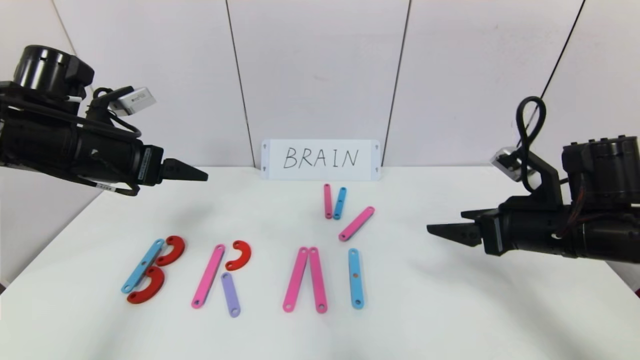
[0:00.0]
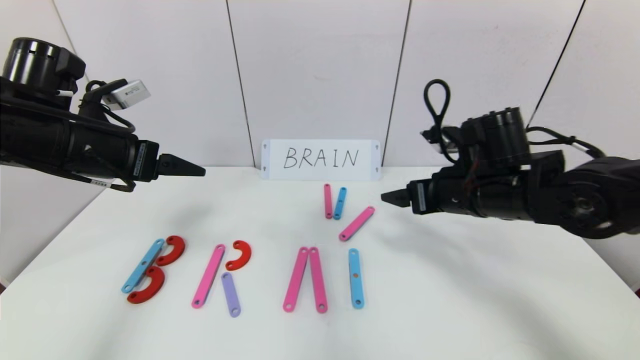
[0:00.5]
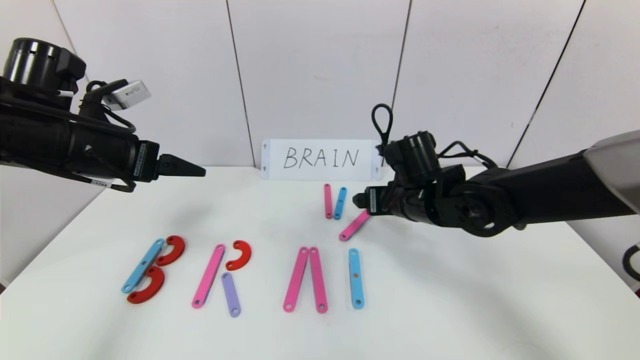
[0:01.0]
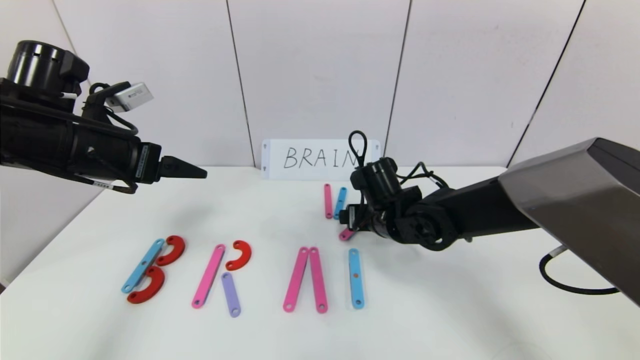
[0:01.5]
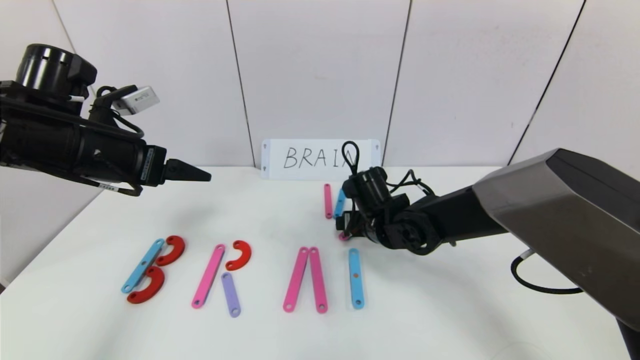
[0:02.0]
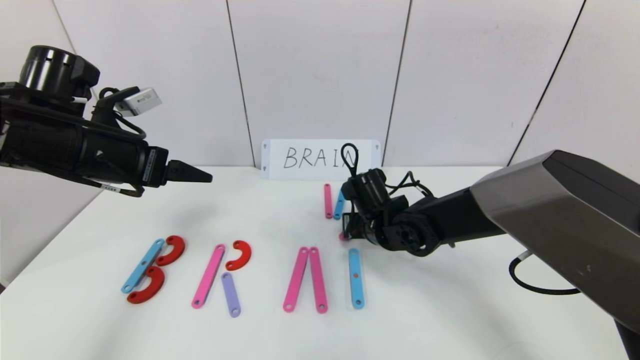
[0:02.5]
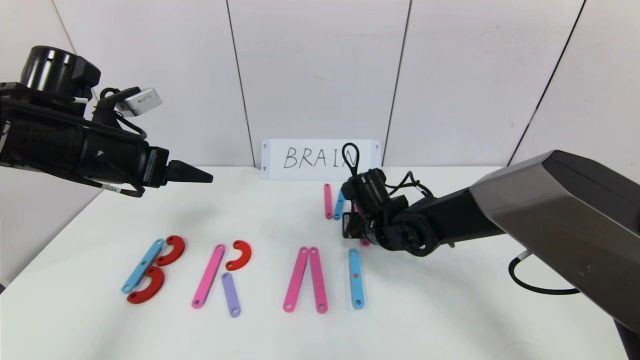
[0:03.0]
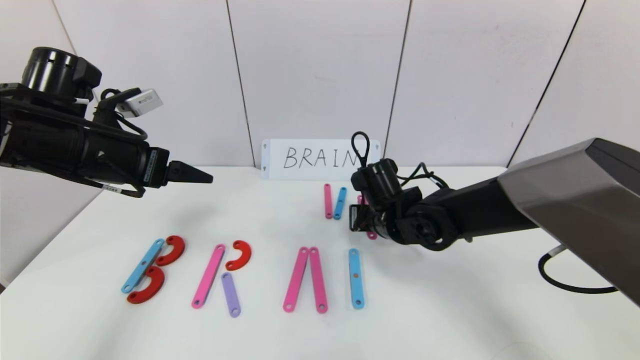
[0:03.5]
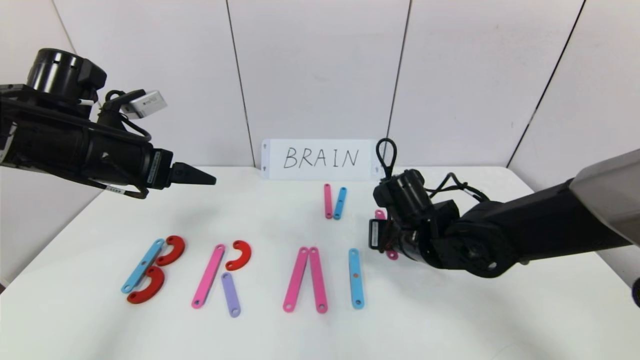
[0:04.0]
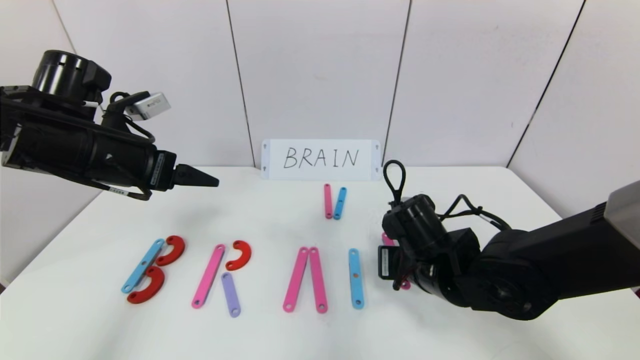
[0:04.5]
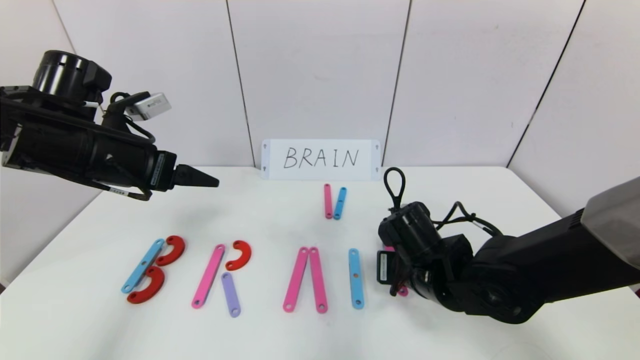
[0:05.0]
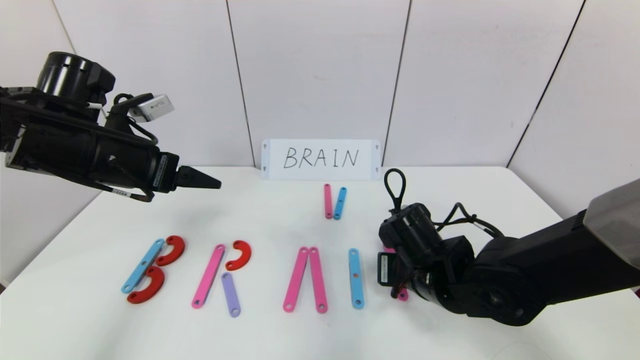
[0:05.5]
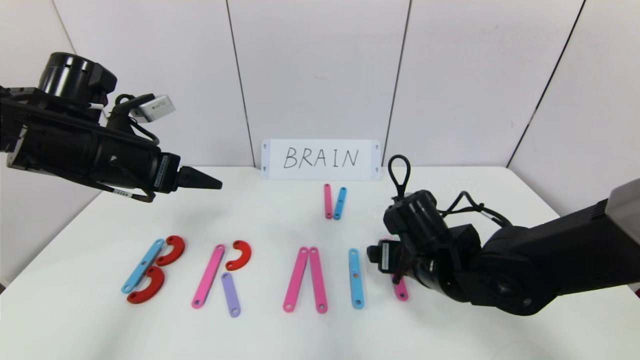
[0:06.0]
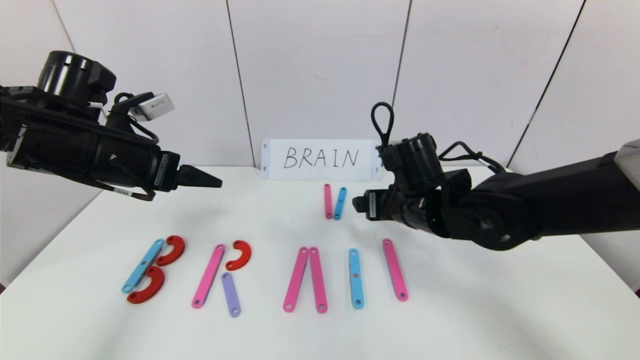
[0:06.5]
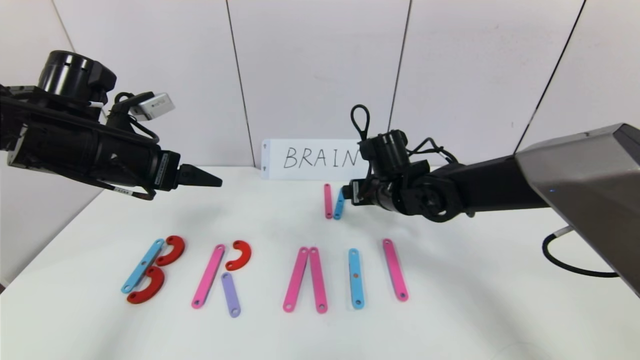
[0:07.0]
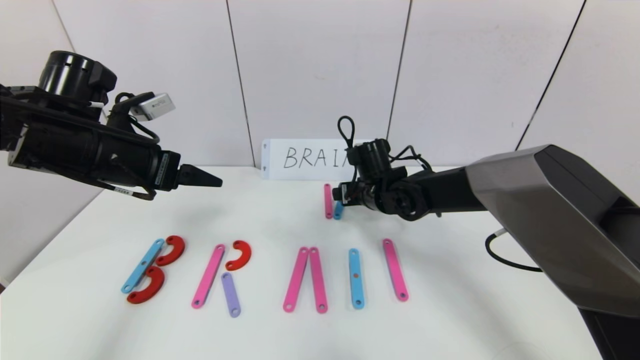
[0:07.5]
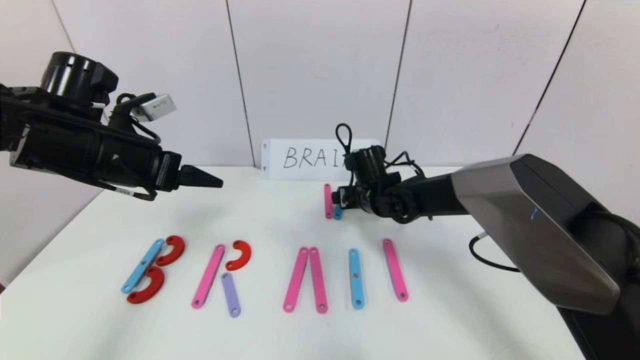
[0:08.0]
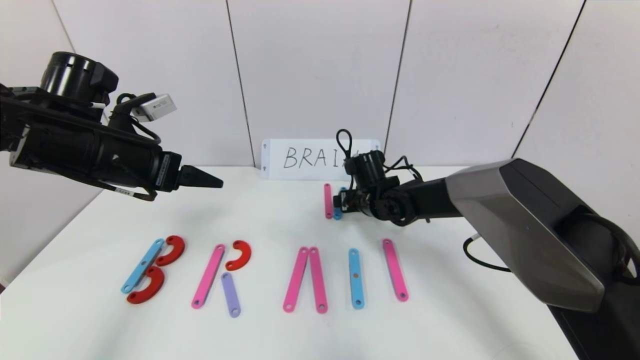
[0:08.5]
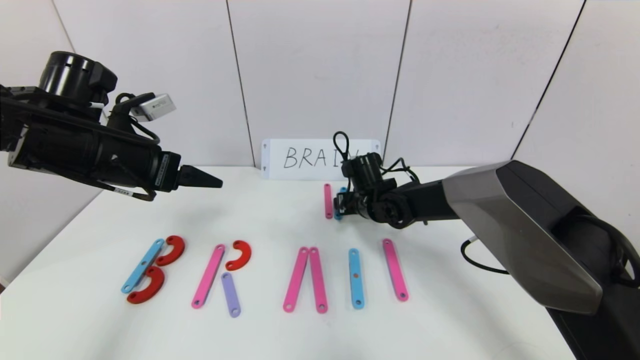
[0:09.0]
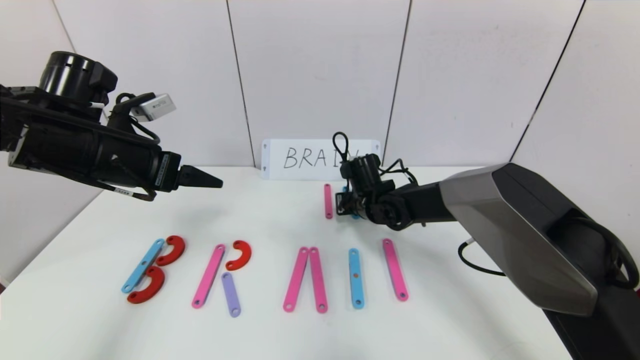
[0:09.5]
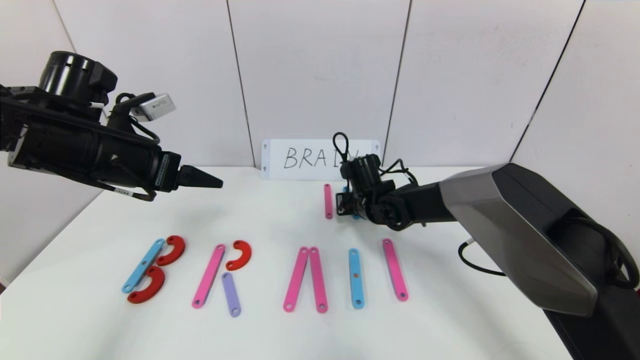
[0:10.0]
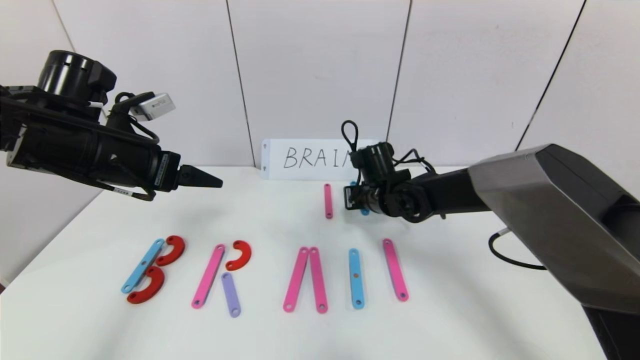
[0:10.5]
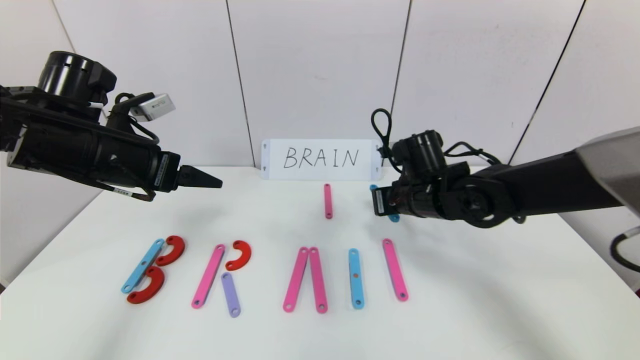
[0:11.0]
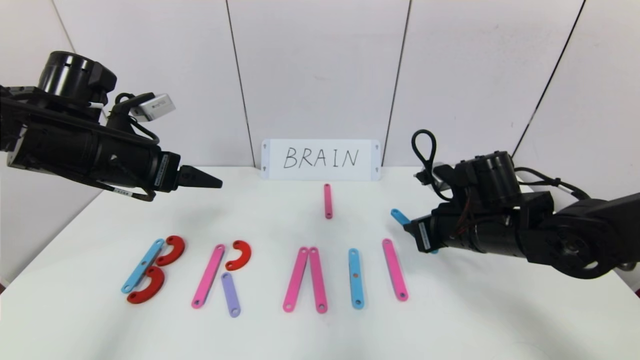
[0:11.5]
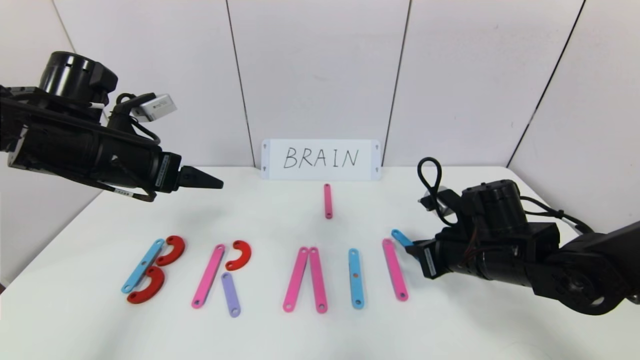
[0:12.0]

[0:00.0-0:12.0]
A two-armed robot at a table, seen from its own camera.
Task of the whole recording: rearrange the word baai as brain.
0:00.0 to 0:02.0: The right gripper goes approximately 25 cm to the left, forward and downward.
0:02.0 to 0:04.0: The right gripper travels backward by roughly 5 cm, and closes its fingers.
0:04.0 to 0:06.0: The right gripper opens its fingers.
0:06.0 to 0:08.0: The right gripper shifts about 15 cm forward.
0:08.0 to 0:10.0: The right gripper closes its fingers.
0:10.0 to 0:12.0: The right gripper heads backward and to the right, covering some 20 cm.

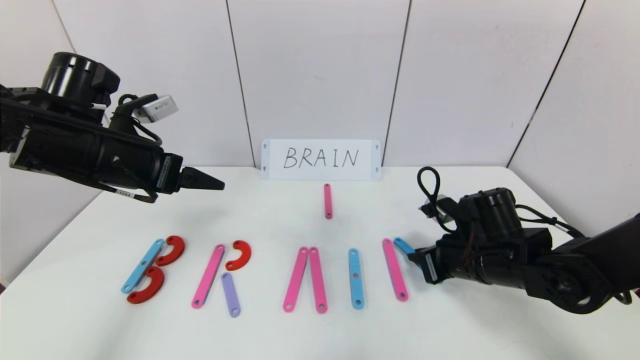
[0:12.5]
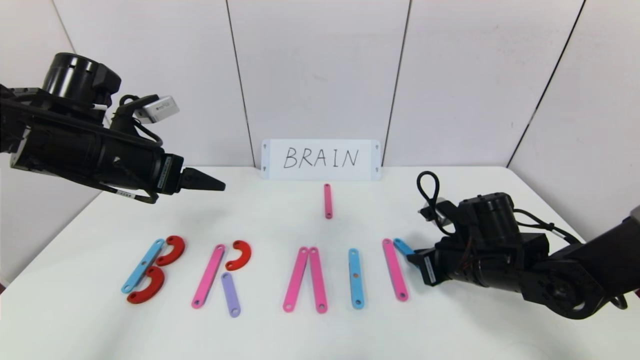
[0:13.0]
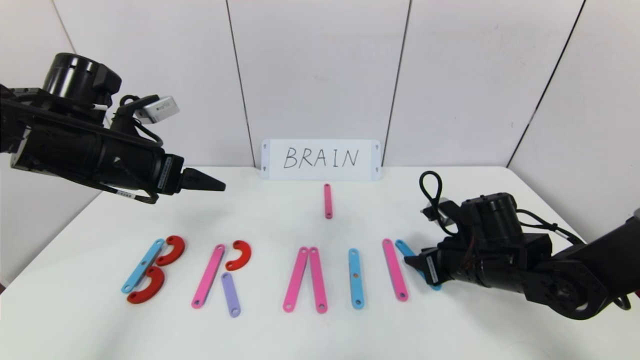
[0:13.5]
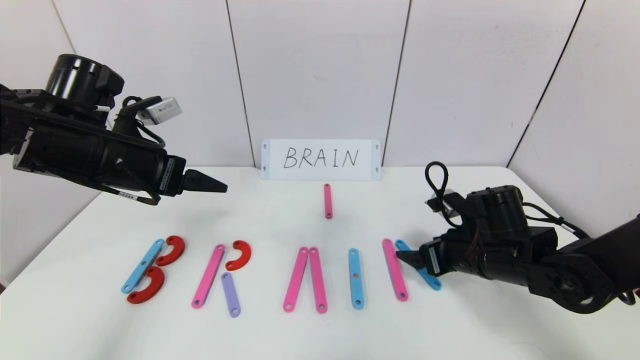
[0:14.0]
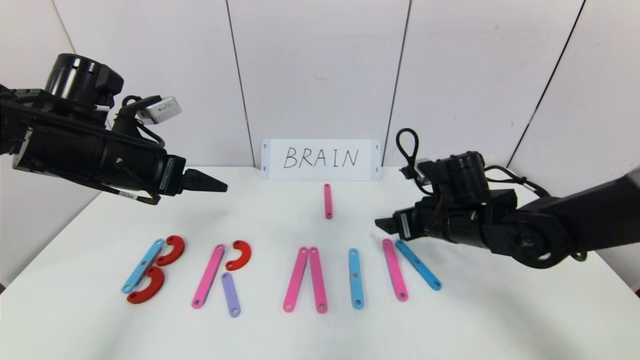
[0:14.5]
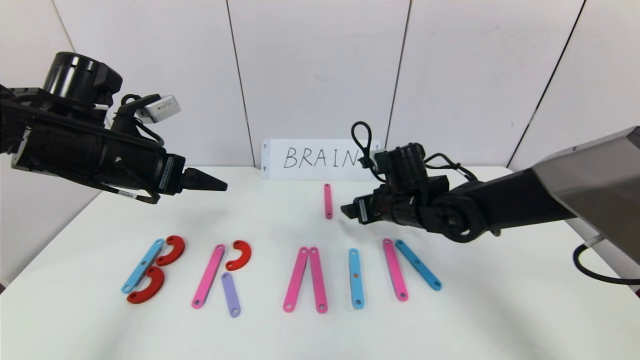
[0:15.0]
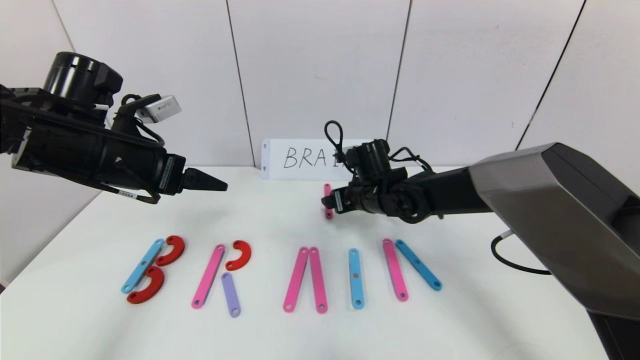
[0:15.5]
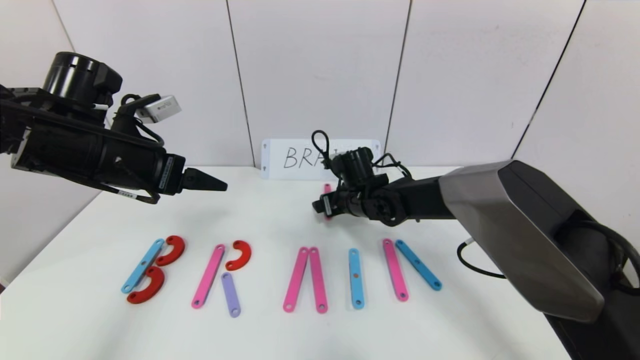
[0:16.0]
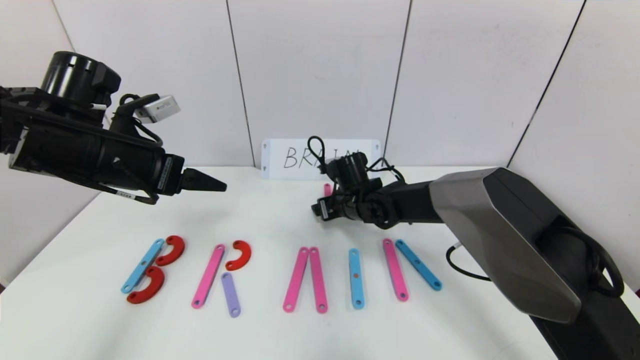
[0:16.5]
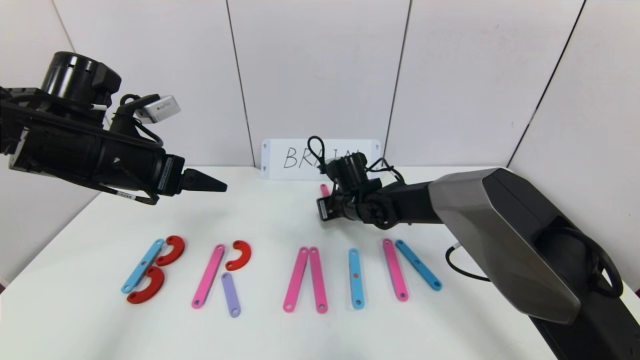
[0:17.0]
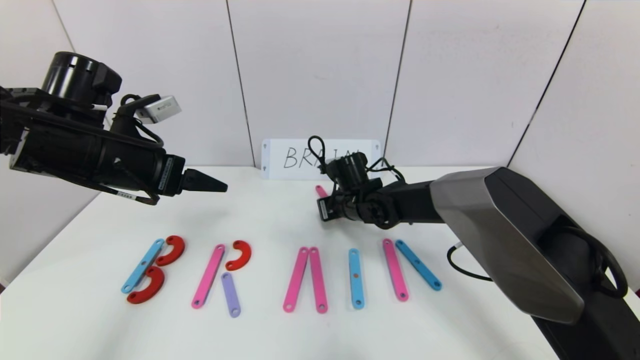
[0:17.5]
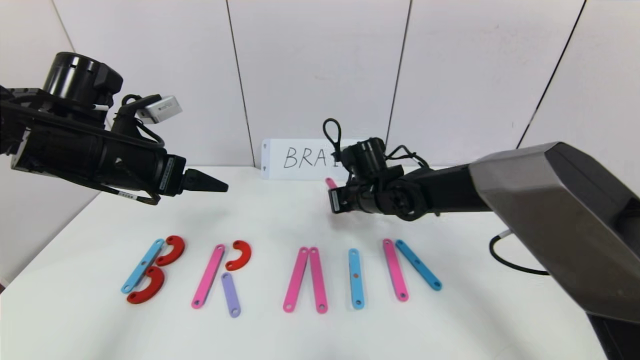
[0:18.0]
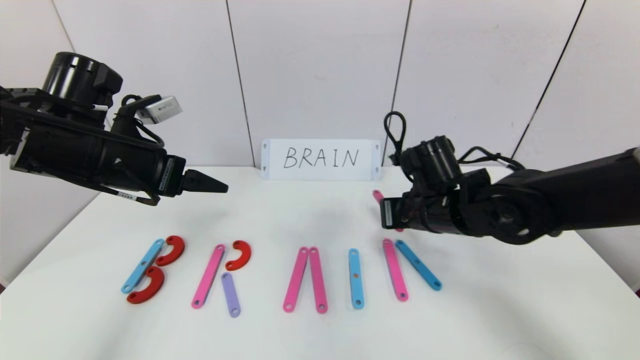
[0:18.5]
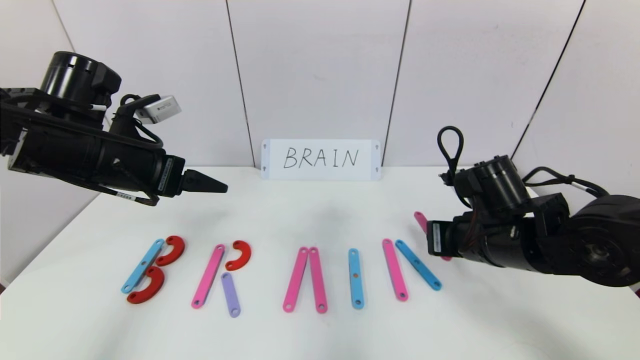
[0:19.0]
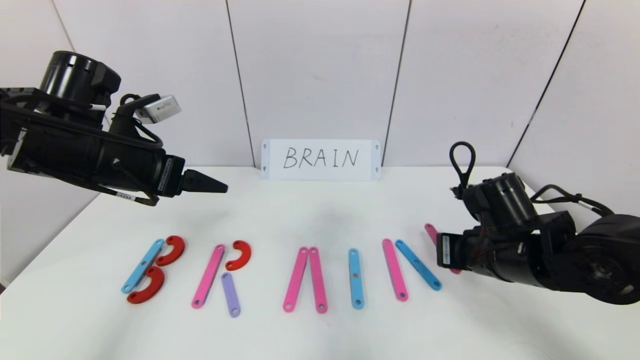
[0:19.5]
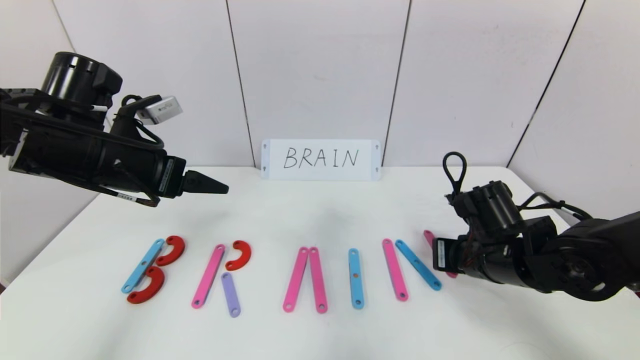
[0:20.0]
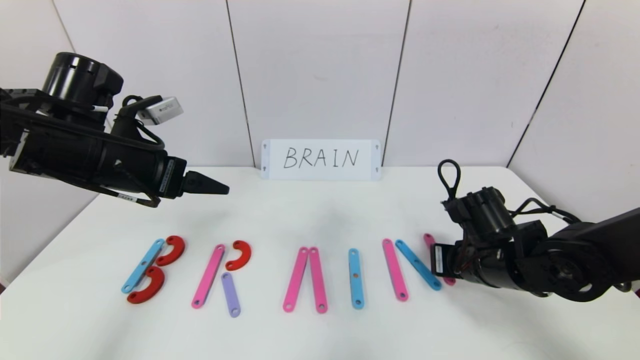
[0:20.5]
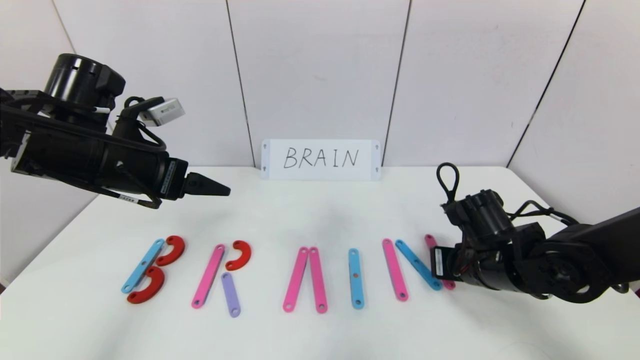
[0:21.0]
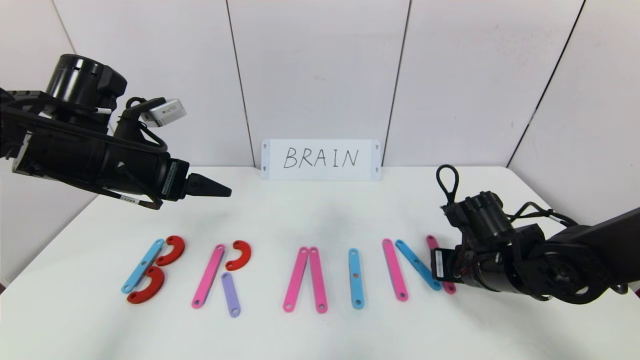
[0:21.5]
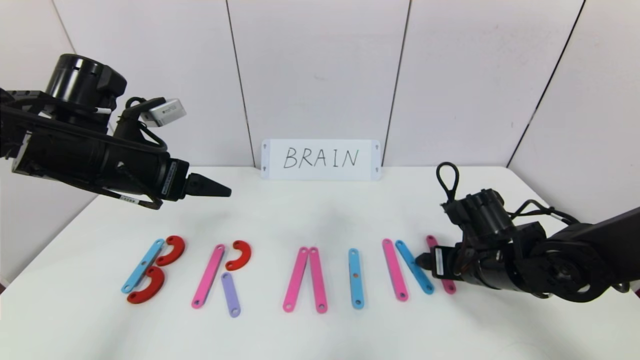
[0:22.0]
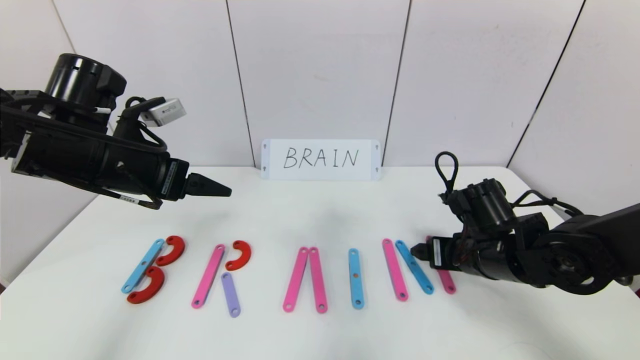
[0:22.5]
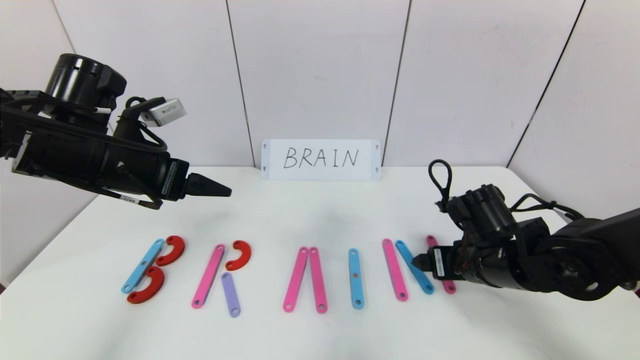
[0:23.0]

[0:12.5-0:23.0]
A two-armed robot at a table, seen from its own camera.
Task of the whole recording: rearrange the word baai as brain.
Step, 0:12.5 to 0:21.5: Place the character N after character I.
0:12.5 to 0:14.5: The right gripper moves some 5 cm, and opens up.
0:14.5 to 0:16.5: The right gripper shifts roughly 20 cm to the left, forward and downward.
0:16.5 to 0:19.0: The right gripper travels backward, to the right and upward by roughly 25 cm, and closes its fingers.
0:19.0 to 0:21.0: The right gripper goes about 5 cm downward.
0:21.0 to 0:23.0: The right gripper opens.
